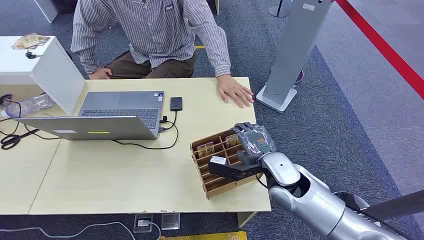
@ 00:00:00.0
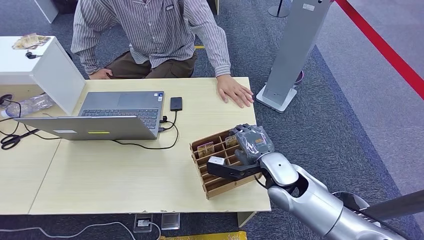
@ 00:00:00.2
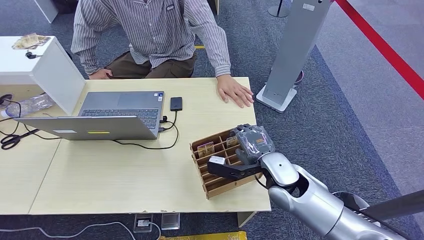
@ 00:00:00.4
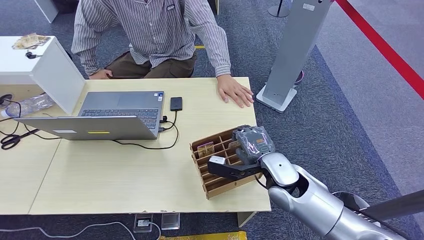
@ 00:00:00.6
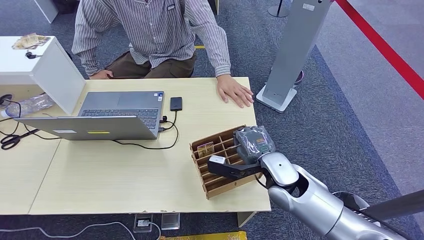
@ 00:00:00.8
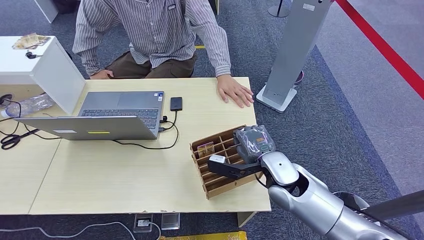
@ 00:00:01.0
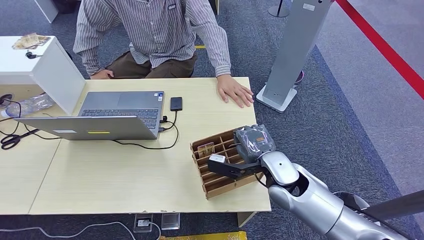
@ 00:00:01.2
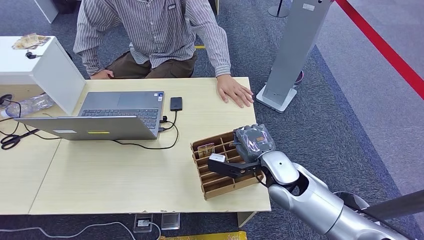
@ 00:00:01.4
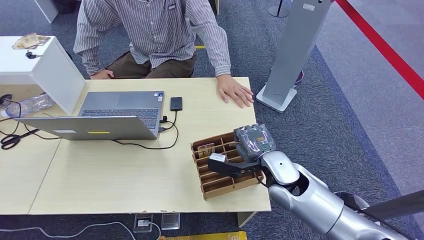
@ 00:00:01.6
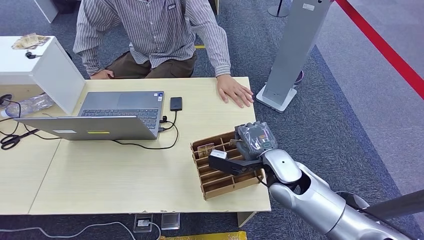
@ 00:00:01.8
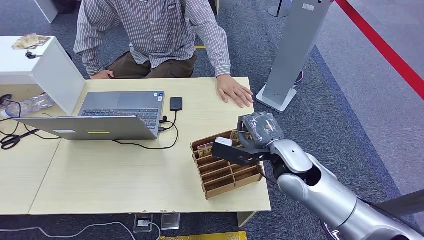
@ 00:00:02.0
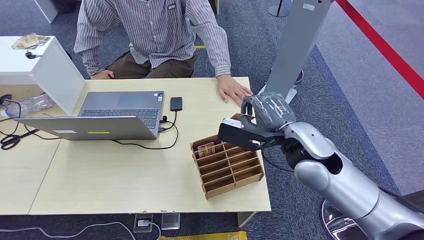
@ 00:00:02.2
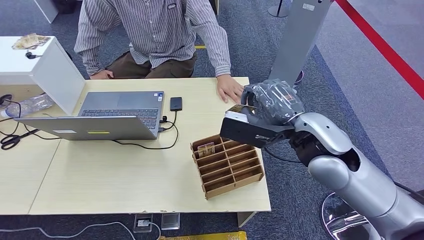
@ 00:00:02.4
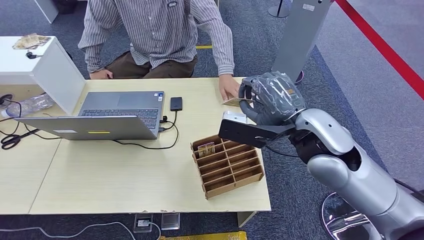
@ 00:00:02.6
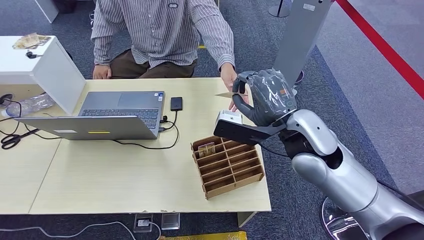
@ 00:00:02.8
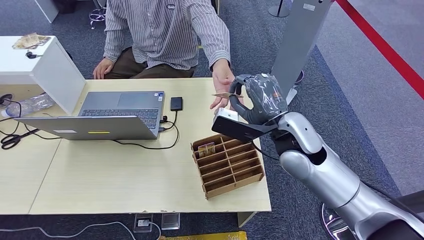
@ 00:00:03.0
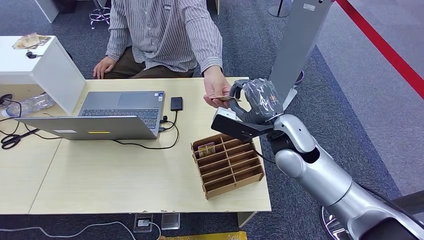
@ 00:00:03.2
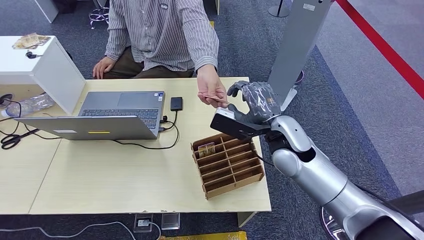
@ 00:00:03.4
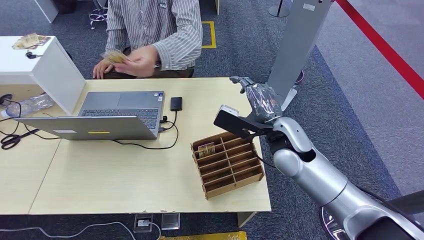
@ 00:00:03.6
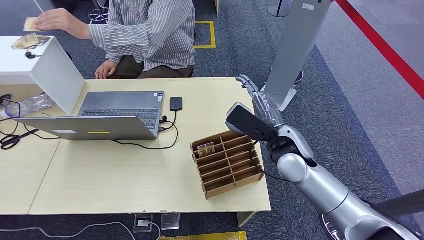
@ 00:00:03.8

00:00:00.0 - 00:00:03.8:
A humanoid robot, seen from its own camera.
Step, 00:00:00.0 - 00:00:02.0: Pick up the room card from the card holder.
Step, 00:00:02.8 - 00:00:03.8: Hand the room card to the target.
00:00:01.2 - 00:00:02.6: The right hand is displaced upward by roughly 15 cm.
